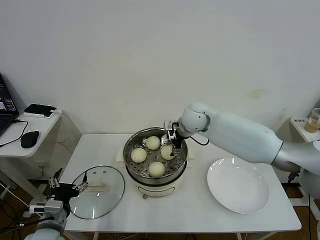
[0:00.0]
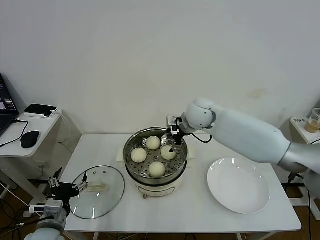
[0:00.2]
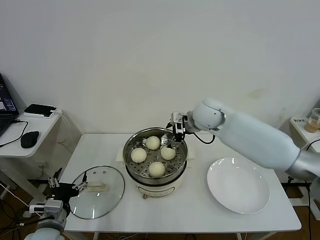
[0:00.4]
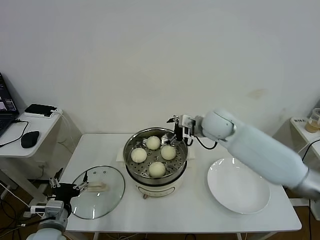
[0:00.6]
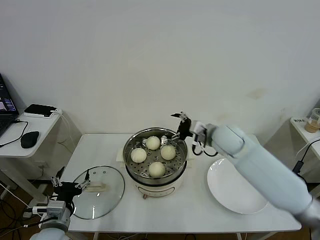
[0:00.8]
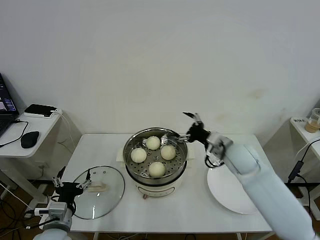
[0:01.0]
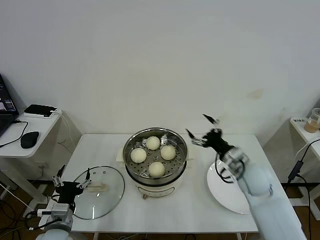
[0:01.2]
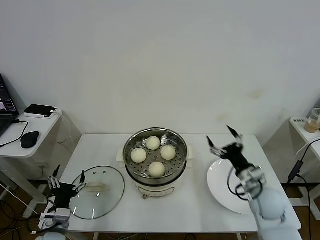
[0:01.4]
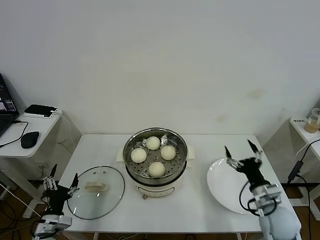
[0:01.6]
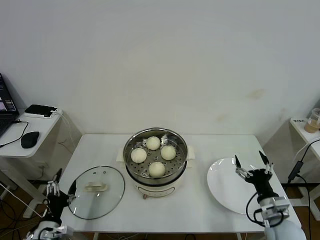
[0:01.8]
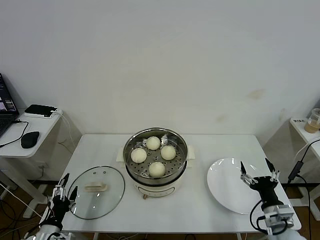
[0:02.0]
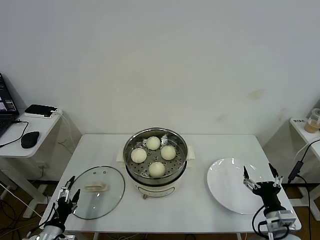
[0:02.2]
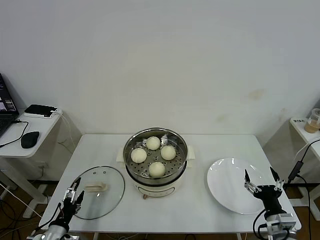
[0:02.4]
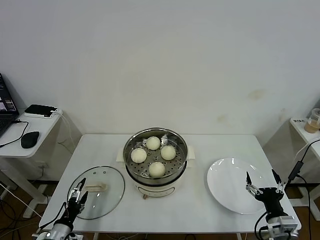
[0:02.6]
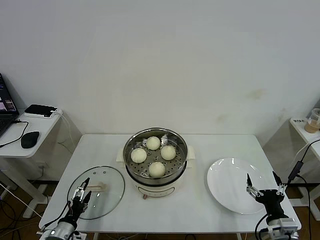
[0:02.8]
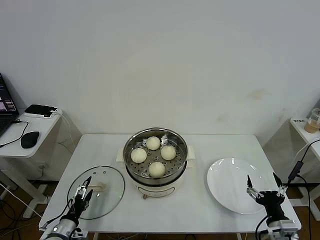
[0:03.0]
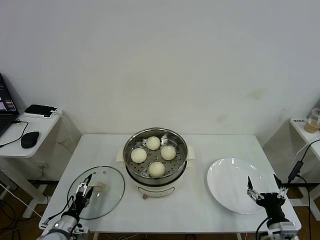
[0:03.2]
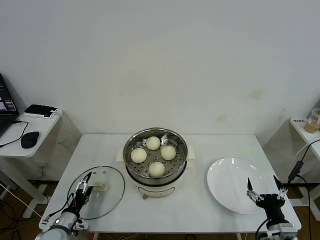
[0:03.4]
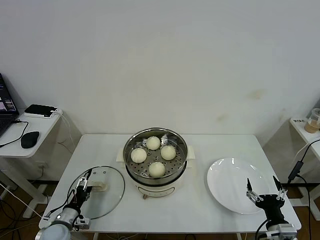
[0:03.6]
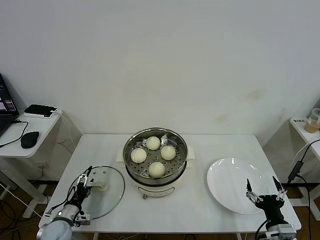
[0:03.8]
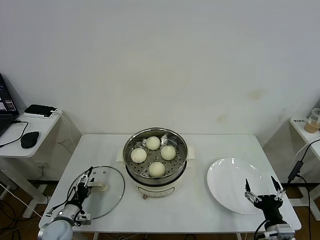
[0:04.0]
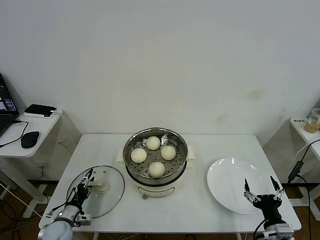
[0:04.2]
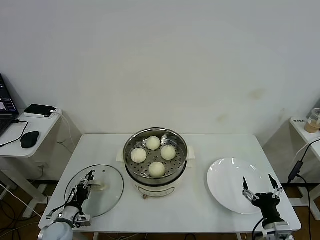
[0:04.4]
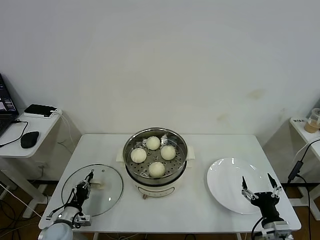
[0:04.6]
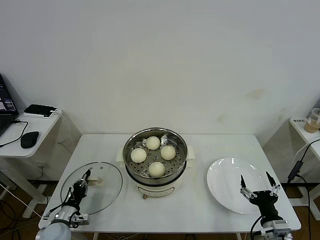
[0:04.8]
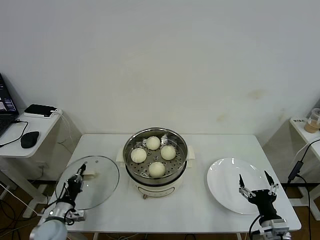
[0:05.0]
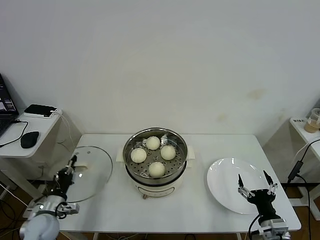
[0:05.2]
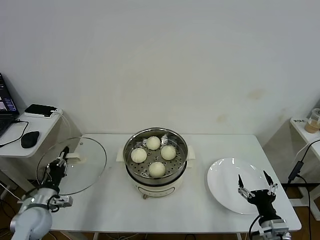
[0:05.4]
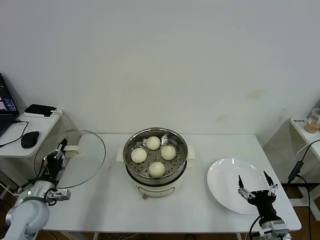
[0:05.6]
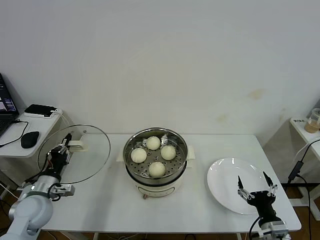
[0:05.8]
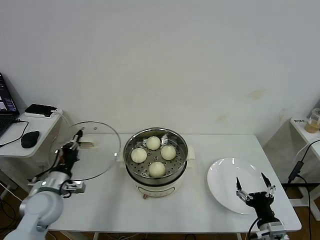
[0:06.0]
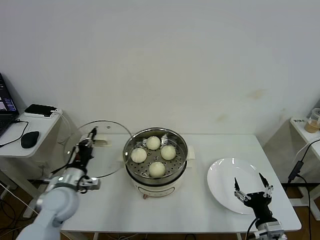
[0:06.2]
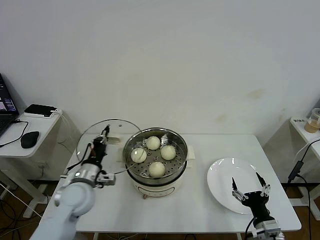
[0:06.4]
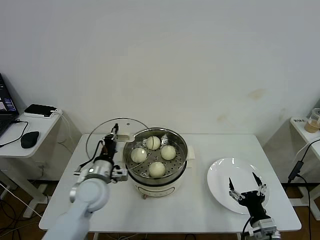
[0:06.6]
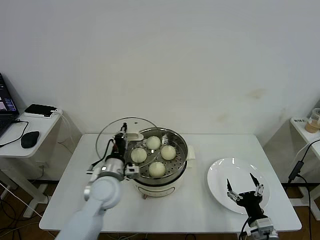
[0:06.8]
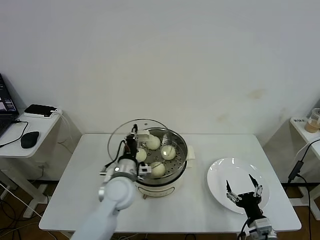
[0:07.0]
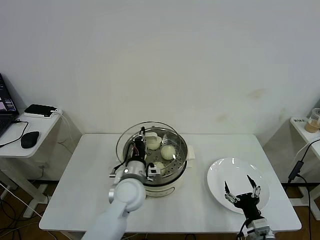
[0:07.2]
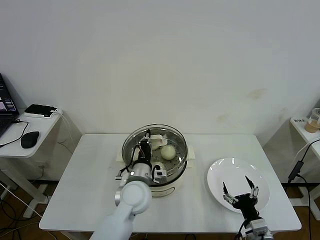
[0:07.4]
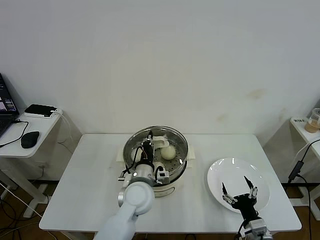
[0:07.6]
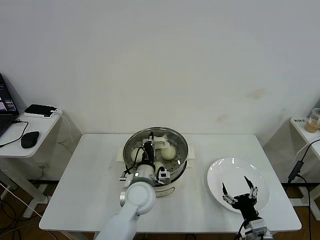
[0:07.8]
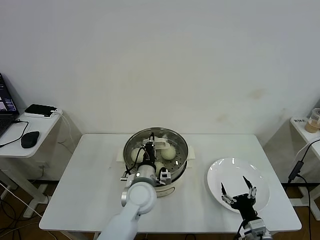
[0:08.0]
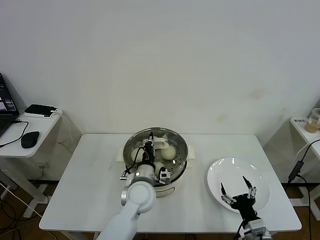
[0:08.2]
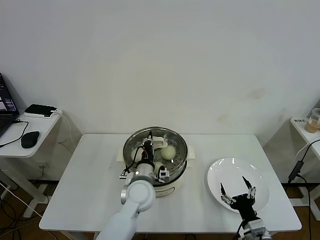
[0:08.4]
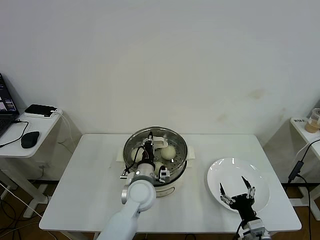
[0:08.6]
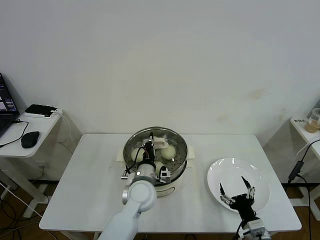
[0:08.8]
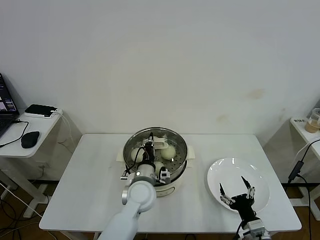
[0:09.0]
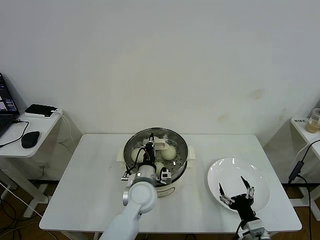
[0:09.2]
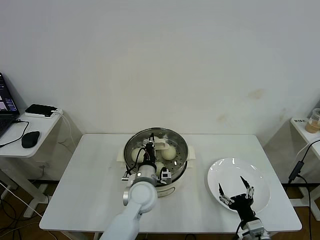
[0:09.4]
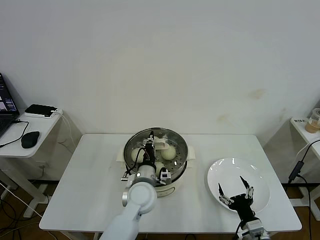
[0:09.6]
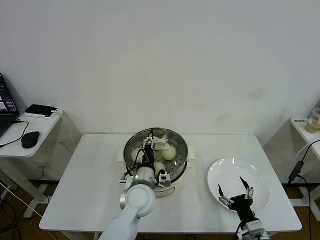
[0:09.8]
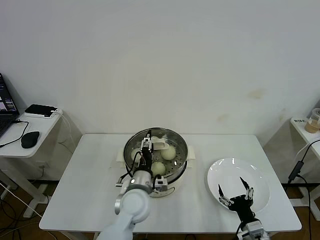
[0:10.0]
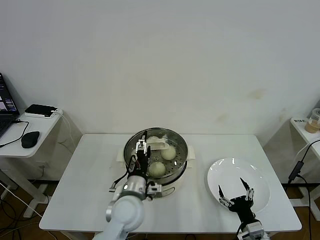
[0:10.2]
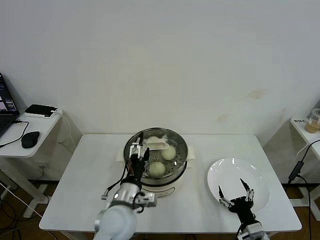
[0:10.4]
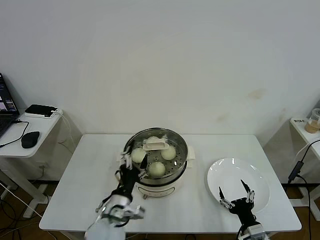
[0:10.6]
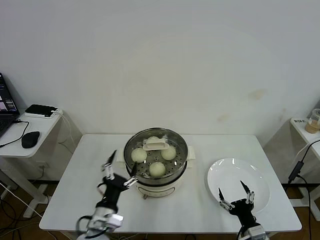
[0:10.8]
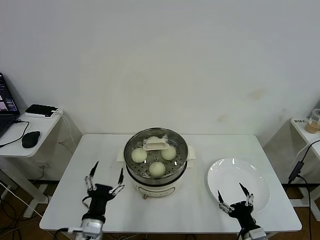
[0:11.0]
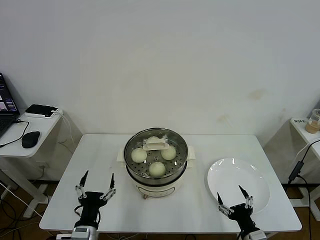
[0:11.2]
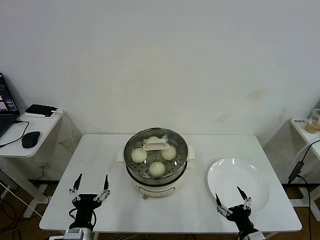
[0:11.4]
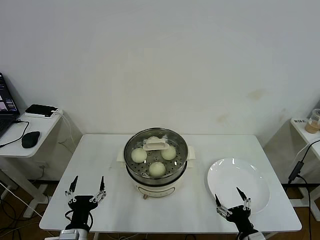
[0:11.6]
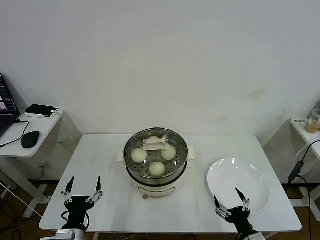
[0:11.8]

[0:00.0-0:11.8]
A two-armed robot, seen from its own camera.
Task of the whole recording: take steamed baozi put them in steamer then cover it.
Step, 0:00.2 to 0:05.0: Grasp the pot lid with left gripper.
Step, 0:05.2 to 0:10.0: Place the pot lid on the steamer with left gripper.
0:00.0 to 0:01.4: The right gripper heads backward, to the right and downward, covering approximately 35 cm.
0:01.4 to 0:03.0: The left gripper is displaced downward by approximately 10 cm; the right gripper moves backward and downward, approximately 15 cm.
0:03.0 to 0:04.4: The left gripper goes approximately 5 cm forward, and closes up.
0:04.4 to 0:06.0: The left gripper shifts about 15 cm upward, and closes.
0:06.0 to 0:07.4: The left gripper travels to the right by some 25 cm.
0:07.4 to 0:08.8: The grippers make only small movements.
0:08.8 to 0:10.4: The left gripper goes about 10 cm backward, and opens up.
0:10.4 to 0:11.8: The left gripper shifts roughly 20 cm to the left, backward and downward.

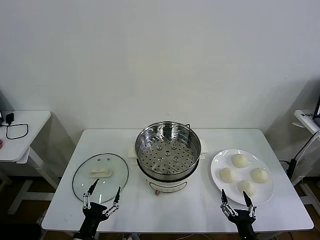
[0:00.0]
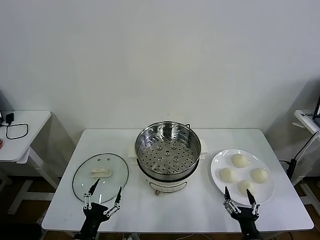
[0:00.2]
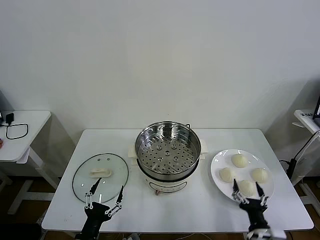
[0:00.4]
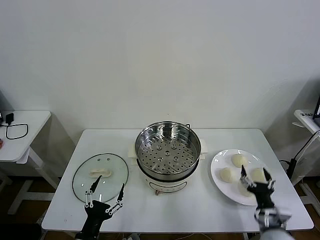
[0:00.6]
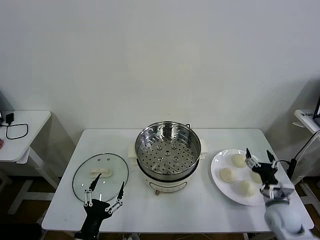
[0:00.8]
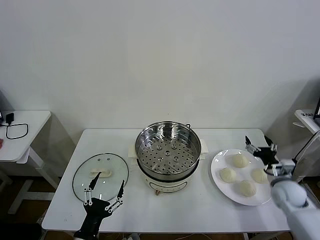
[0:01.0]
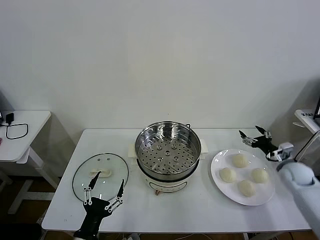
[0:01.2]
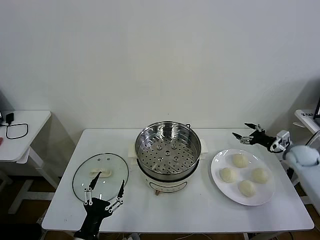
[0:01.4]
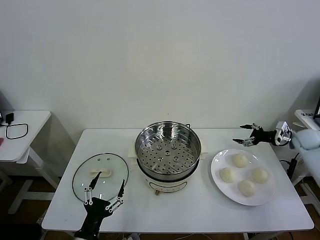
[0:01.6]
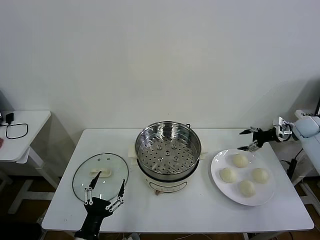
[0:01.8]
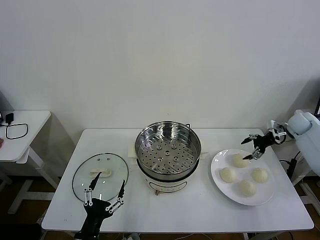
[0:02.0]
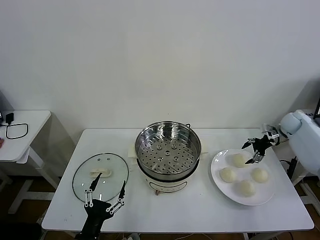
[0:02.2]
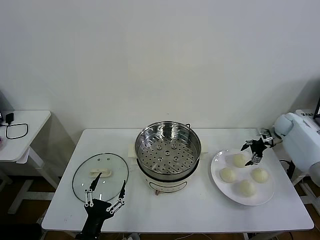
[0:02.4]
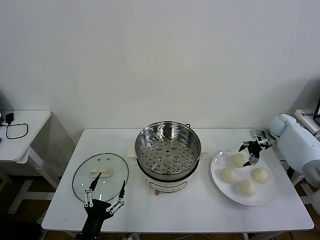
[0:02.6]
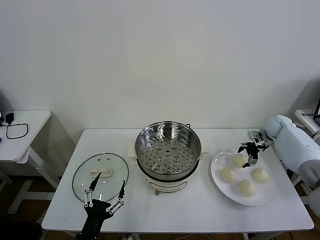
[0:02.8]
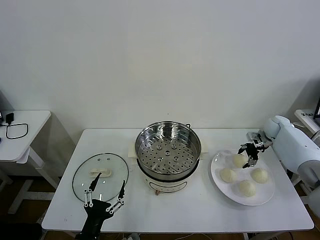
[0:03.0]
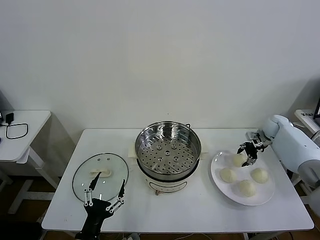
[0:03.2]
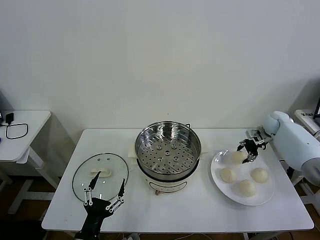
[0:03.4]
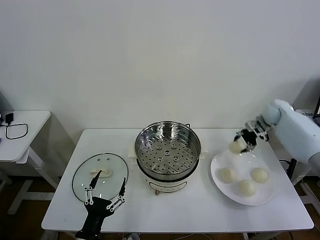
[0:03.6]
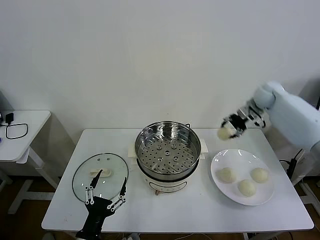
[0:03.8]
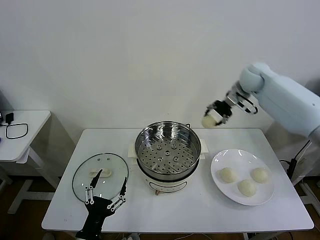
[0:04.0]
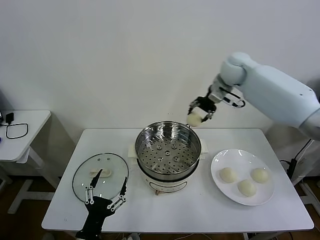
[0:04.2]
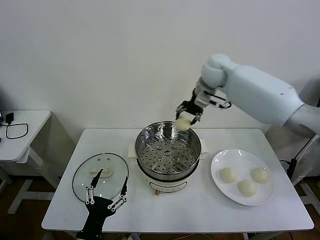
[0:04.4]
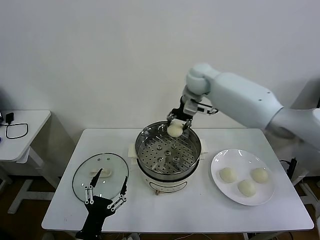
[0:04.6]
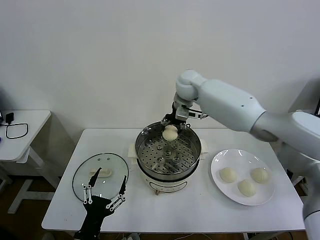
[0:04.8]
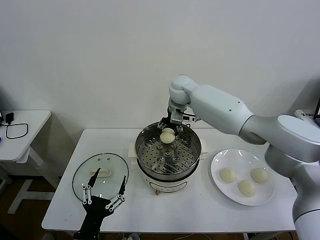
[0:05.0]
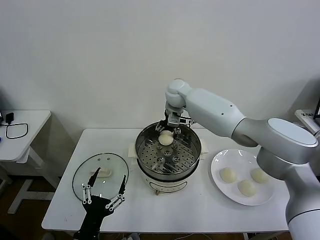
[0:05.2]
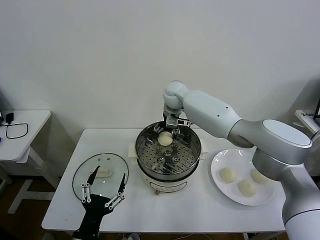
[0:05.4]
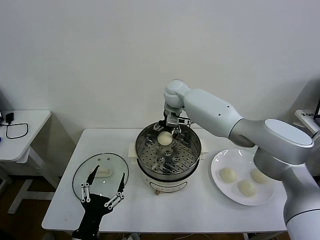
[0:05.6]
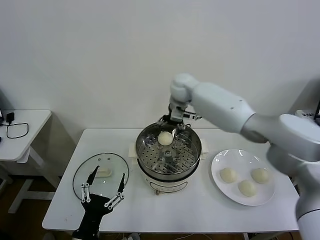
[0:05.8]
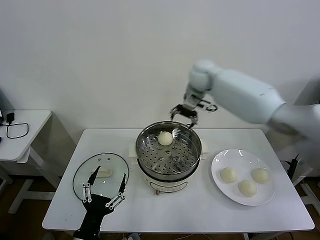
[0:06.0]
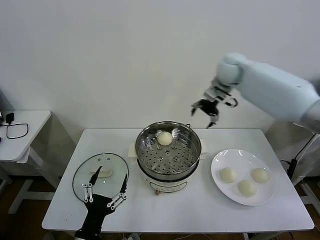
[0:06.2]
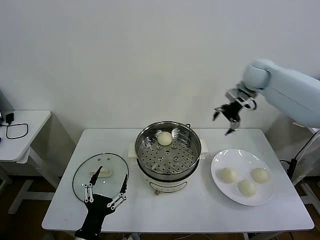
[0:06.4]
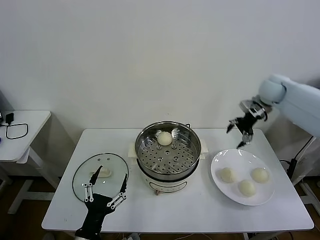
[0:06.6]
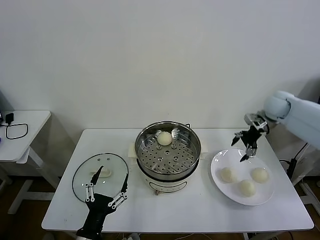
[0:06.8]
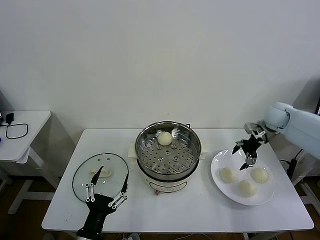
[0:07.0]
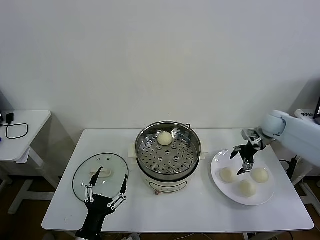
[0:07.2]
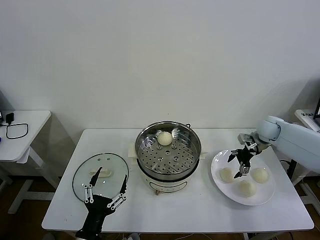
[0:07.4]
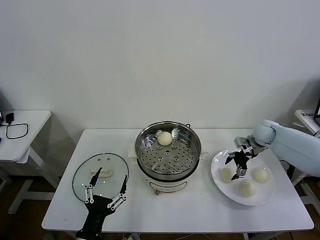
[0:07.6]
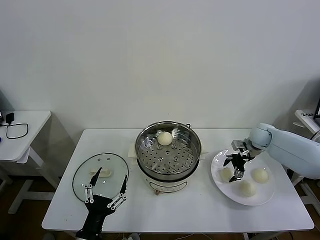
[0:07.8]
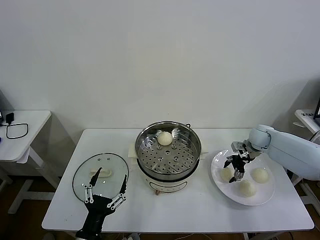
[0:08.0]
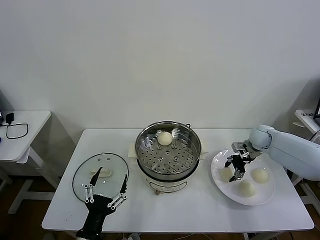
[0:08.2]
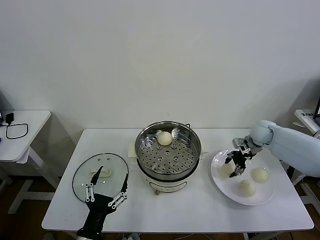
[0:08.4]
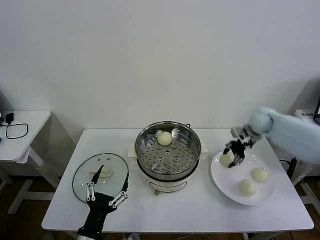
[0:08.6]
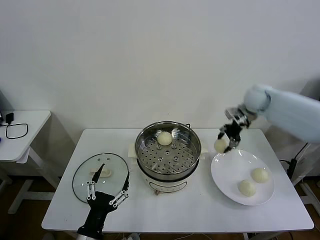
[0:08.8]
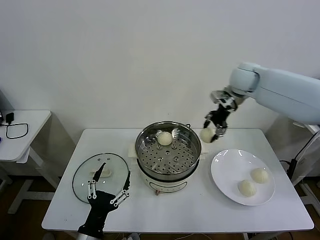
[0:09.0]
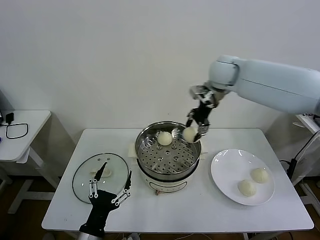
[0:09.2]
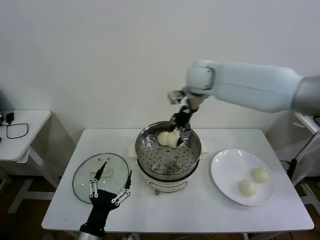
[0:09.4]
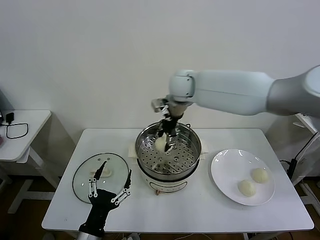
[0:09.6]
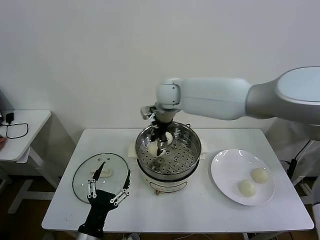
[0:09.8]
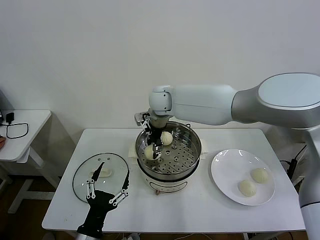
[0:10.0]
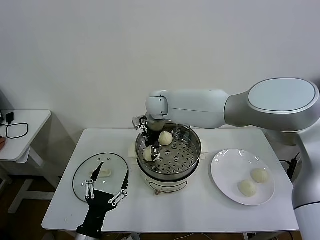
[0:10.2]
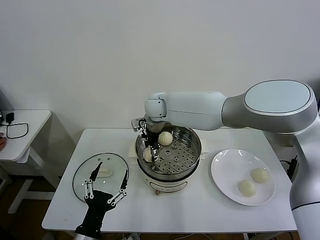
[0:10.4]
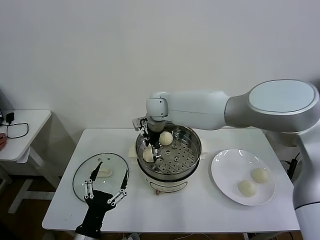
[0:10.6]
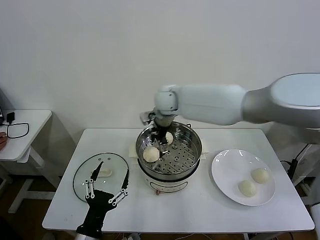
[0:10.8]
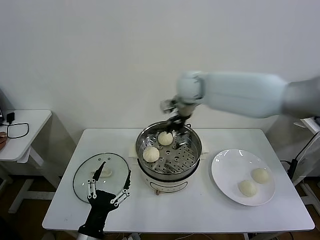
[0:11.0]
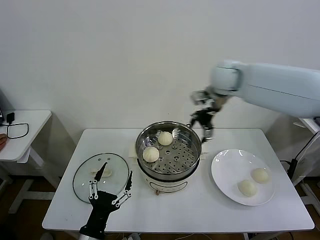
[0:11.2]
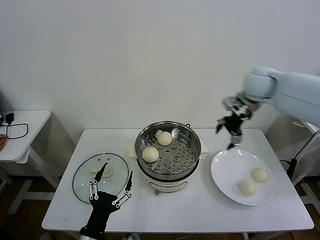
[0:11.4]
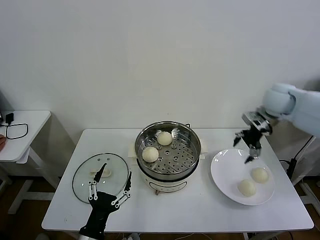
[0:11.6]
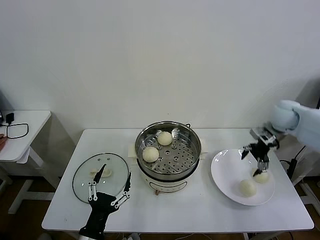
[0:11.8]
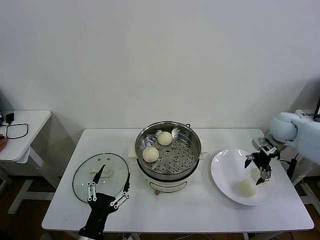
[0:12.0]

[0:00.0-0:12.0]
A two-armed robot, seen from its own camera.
Task of the whole recording: take steamed baozi put them in steamer then cover it.
Step, 0:00.0 to 0:03.2: Grasp the baozi in the plate with right gripper.
Step, 0:03.4 to 0:05.6: Place the baozi on the steamer with right gripper.
Step, 0:05.8 to 0:08.2: Grasp the baozi in the plate with right gripper.
Step, 0:08.4 to 0:10.6: Place the baozi on the steamer with right gripper.
0:01.6 to 0:03.0: The right gripper moves to the left and forward, roughly 10 cm, and closes.
0:03.0 to 0:04.4: The right gripper heads to the left and upward, covering about 40 cm.
0:04.4 to 0:06.0: The right gripper travels to the left and back again, roughly 10 cm each way, and opens.
0:06.0 to 0:07.6: The right gripper heads downward and to the right, covering some 30 cm.
0:07.6 to 0:09.0: The right gripper moves upward and to the left, approximately 30 cm, and closes its fingers.
0:09.0 to 0:10.4: The right gripper moves to the left and downward, roughly 25 cm, and opens its fingers.
0:10.4 to 0:12.0: The right gripper goes roughly 40 cm to the right.
